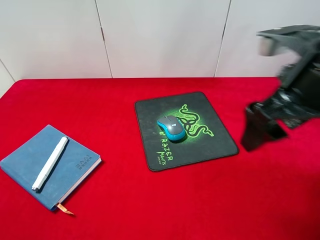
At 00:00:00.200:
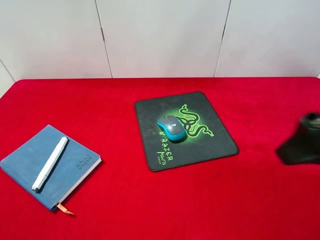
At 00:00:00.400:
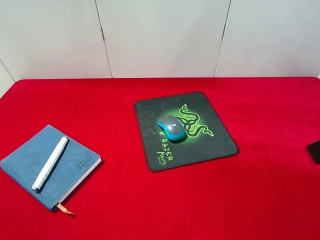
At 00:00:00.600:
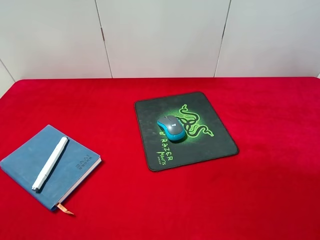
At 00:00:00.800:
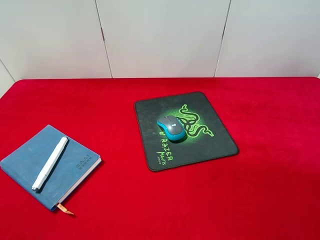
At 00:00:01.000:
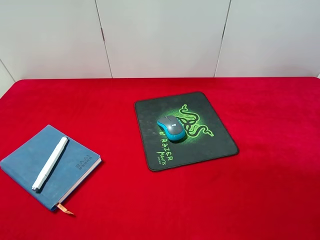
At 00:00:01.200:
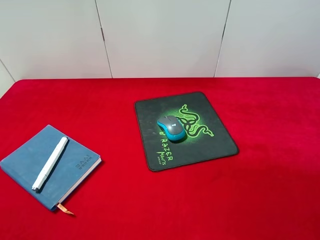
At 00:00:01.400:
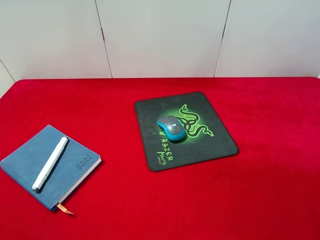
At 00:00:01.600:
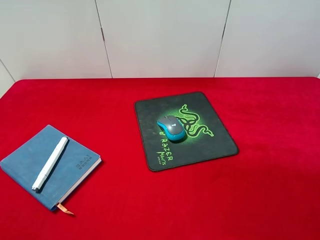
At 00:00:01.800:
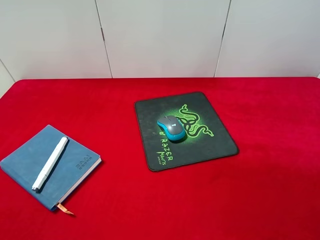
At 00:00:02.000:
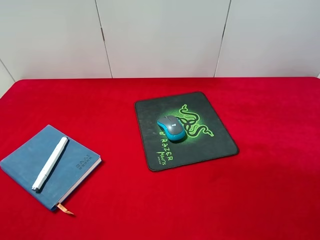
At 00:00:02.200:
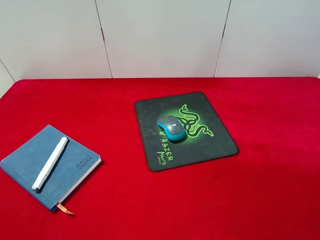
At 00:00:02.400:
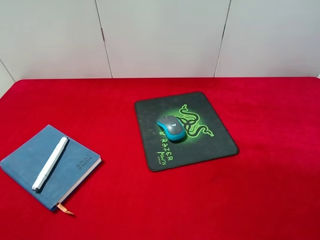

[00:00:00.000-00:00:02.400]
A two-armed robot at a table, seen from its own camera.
00:00:00.000 to 00:00:01.200: The right gripper travels backward and to the right by roughly 20 cm.
